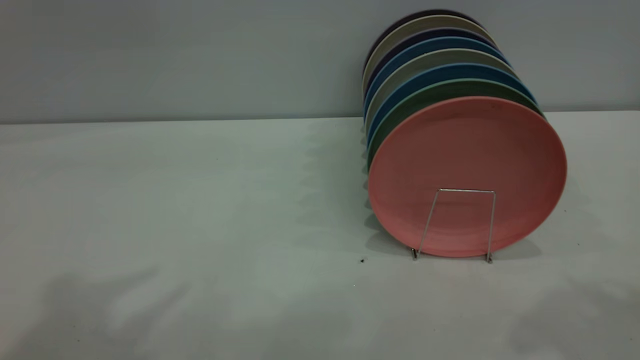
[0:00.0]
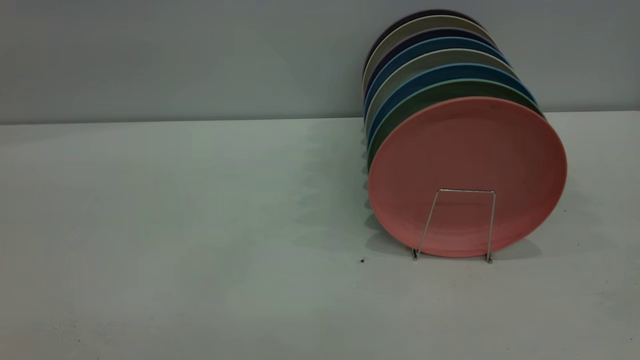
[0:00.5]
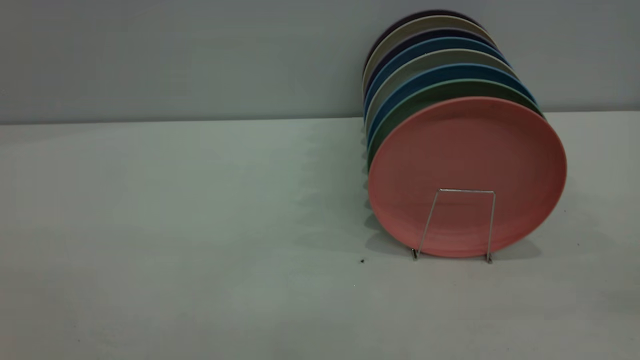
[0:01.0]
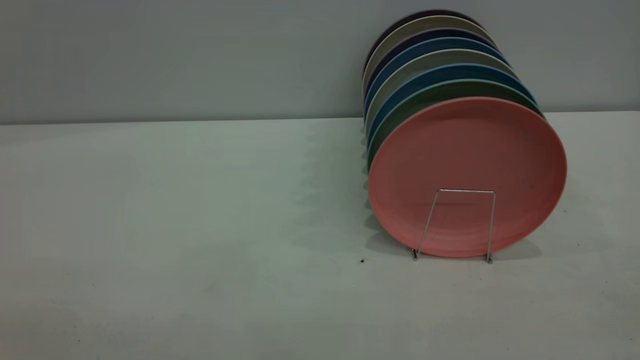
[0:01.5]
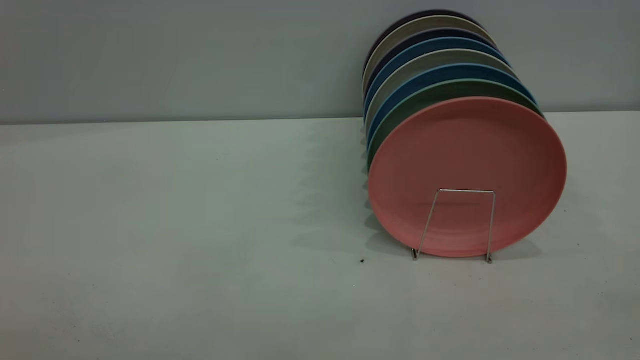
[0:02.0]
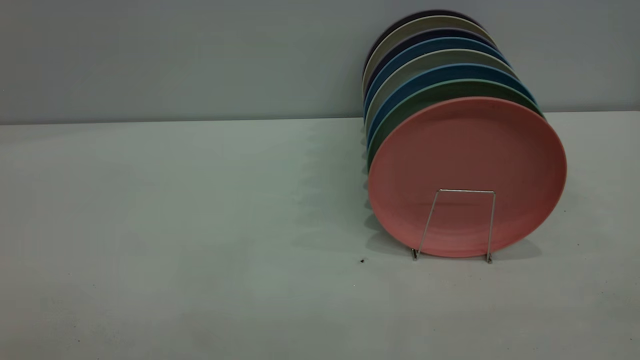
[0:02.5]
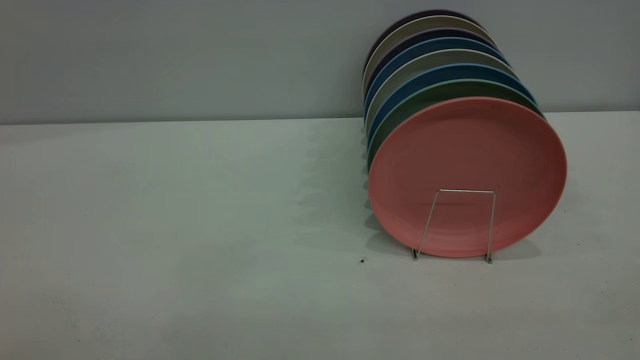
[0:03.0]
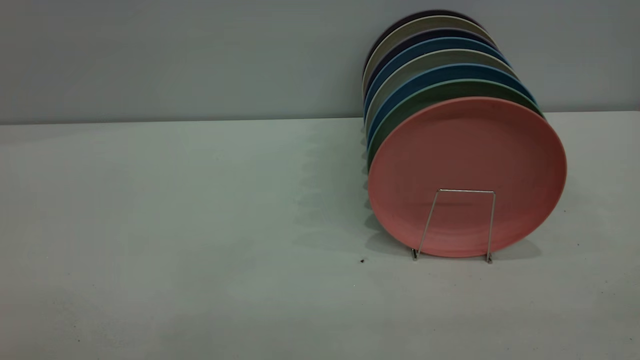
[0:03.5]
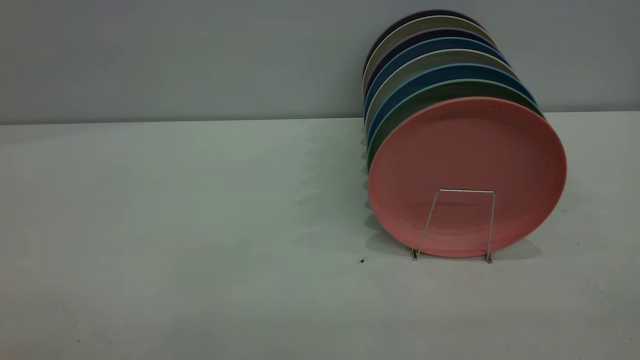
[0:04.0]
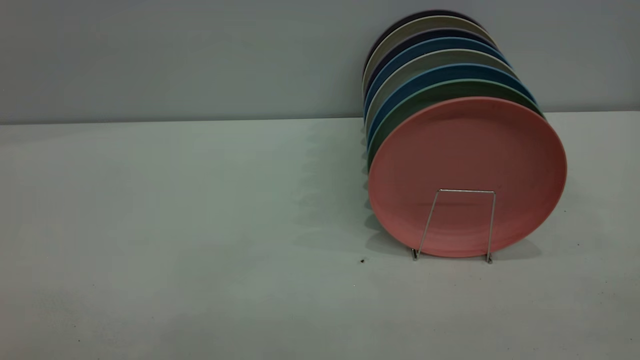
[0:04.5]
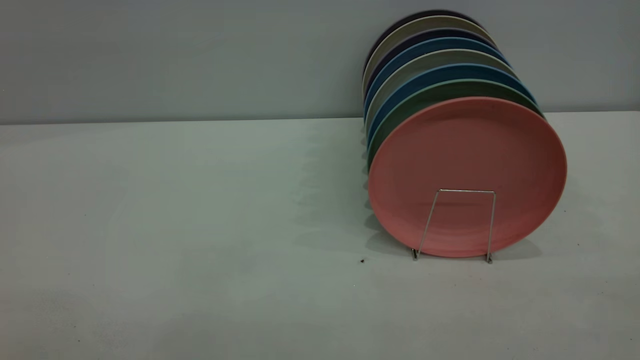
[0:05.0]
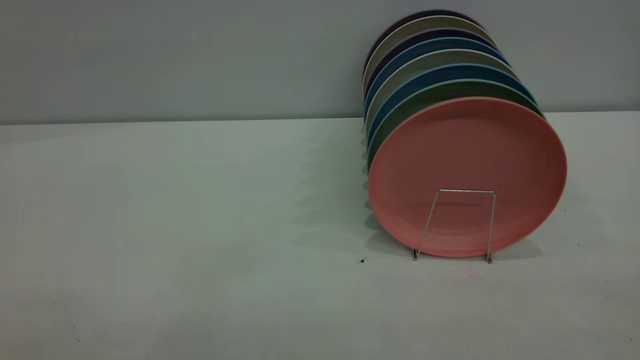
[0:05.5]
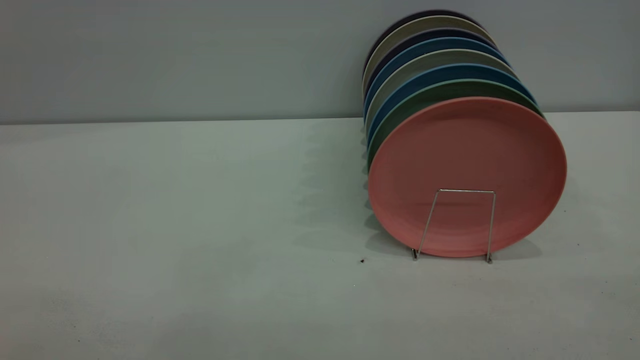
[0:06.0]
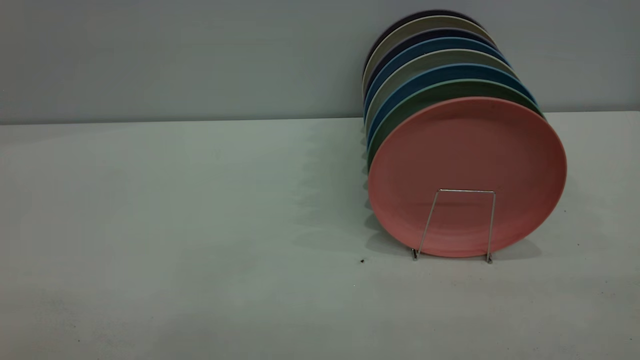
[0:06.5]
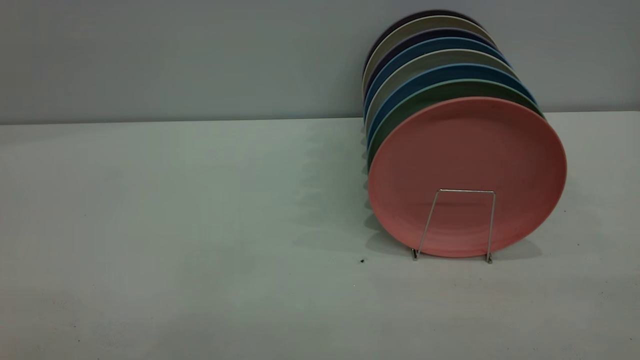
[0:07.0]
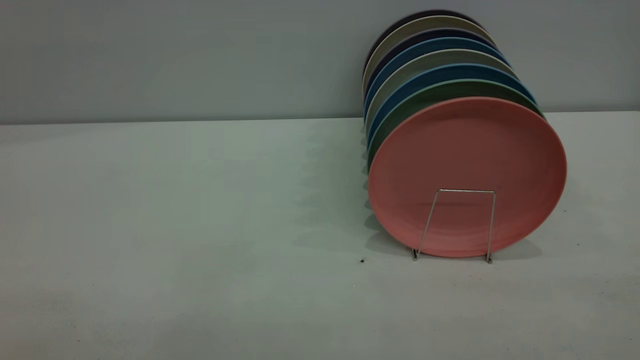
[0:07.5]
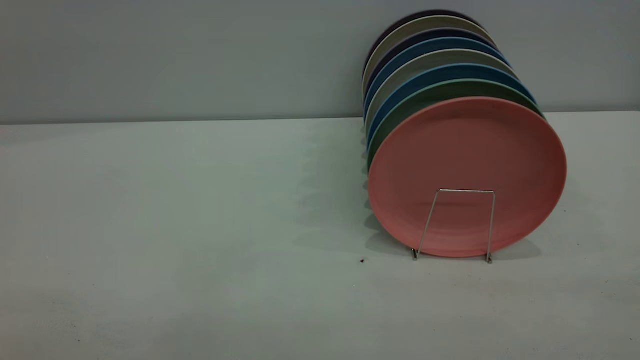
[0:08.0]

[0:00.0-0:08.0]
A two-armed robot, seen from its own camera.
Task of the whole recording: put the plate on the plate rack.
0:06.0 to 0:08.0: Both grippers stay put.

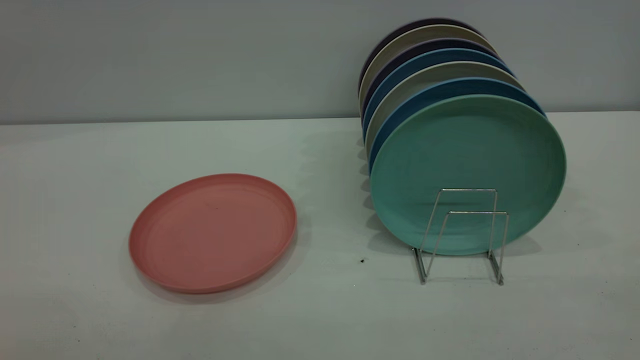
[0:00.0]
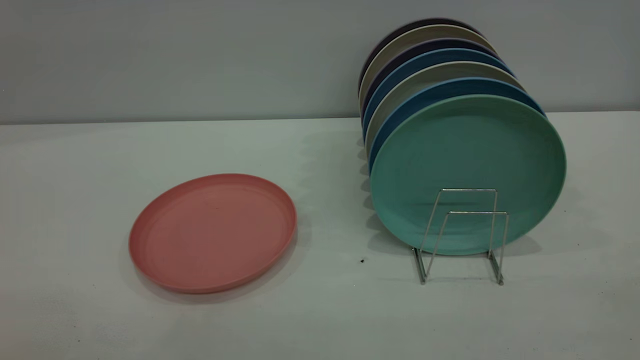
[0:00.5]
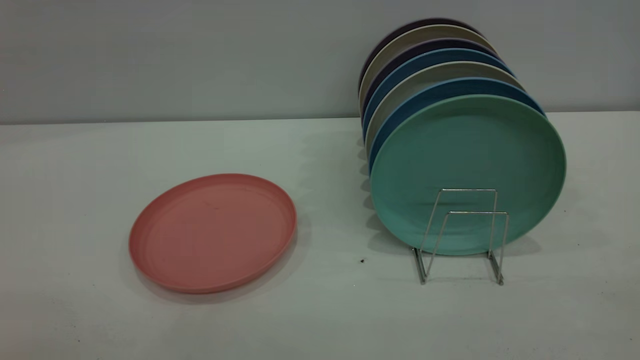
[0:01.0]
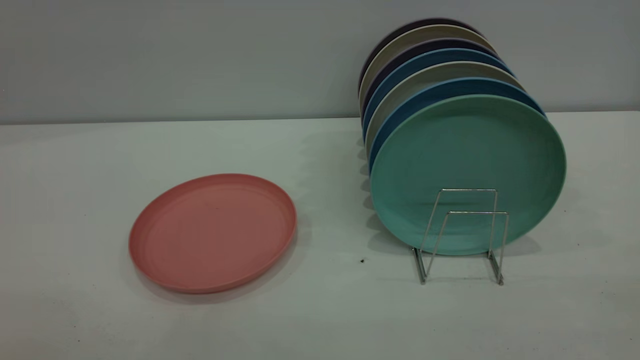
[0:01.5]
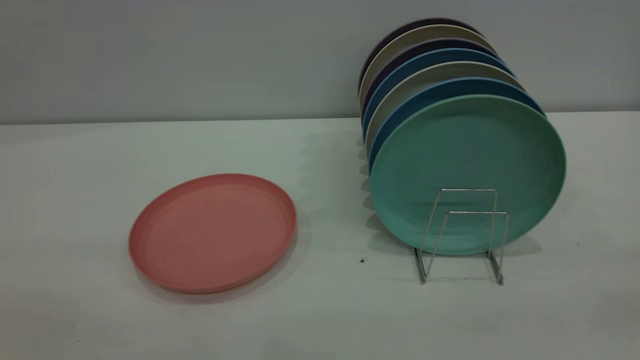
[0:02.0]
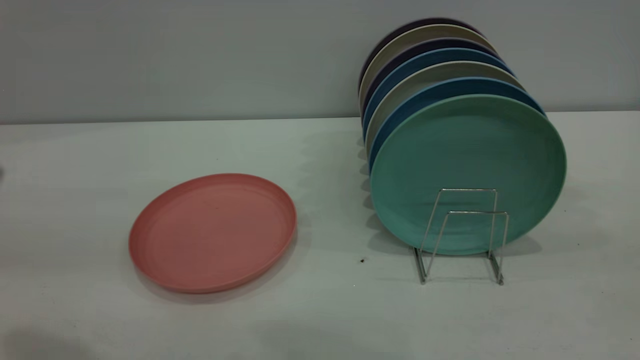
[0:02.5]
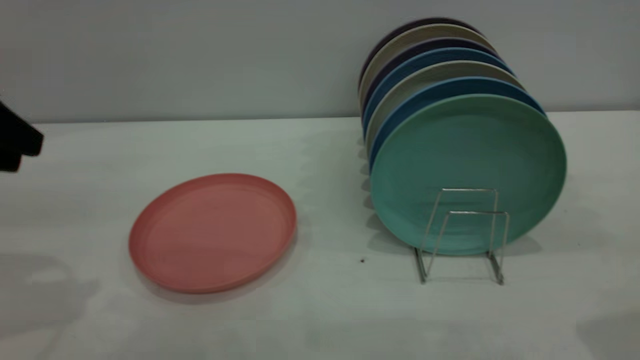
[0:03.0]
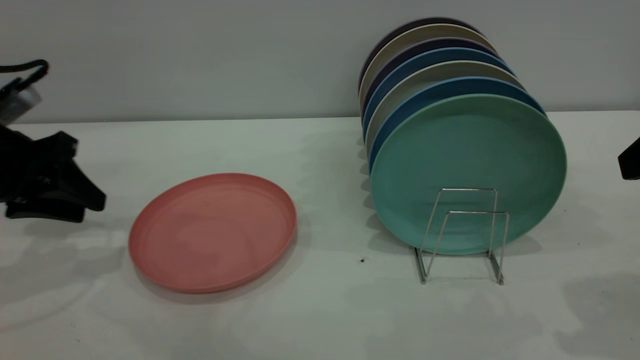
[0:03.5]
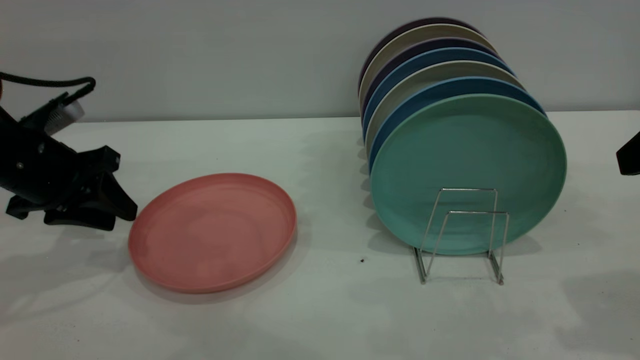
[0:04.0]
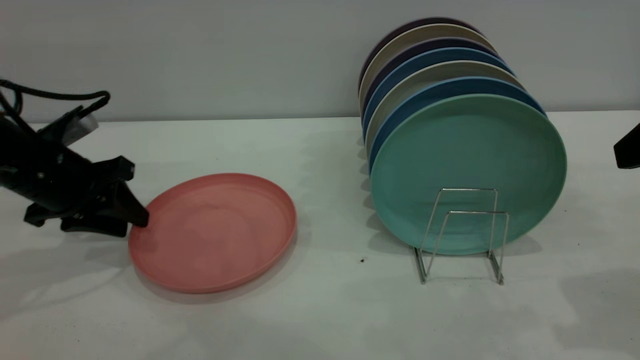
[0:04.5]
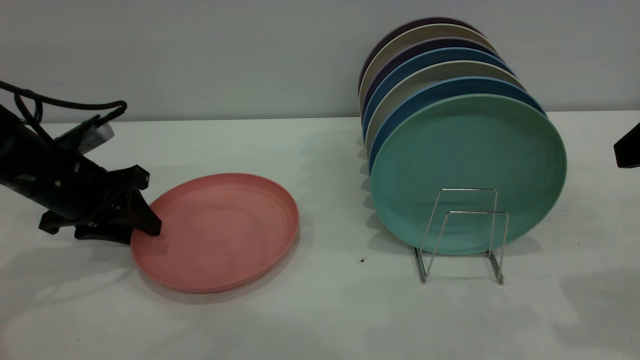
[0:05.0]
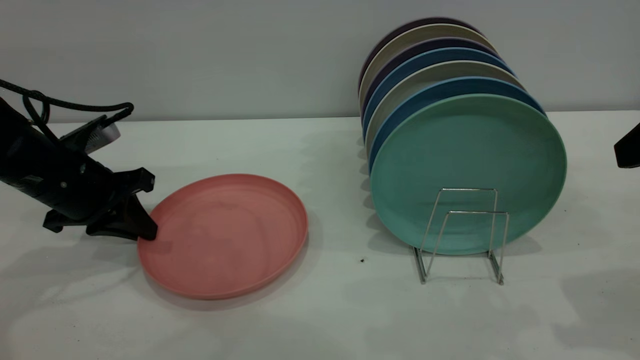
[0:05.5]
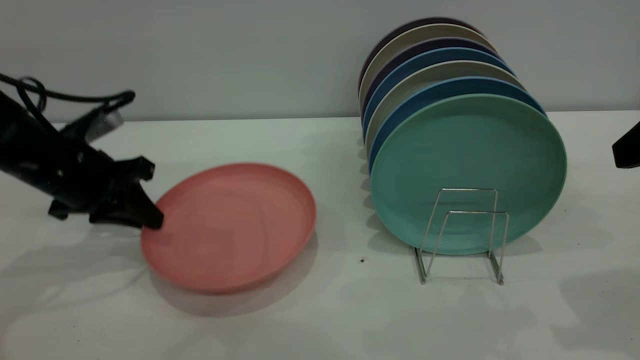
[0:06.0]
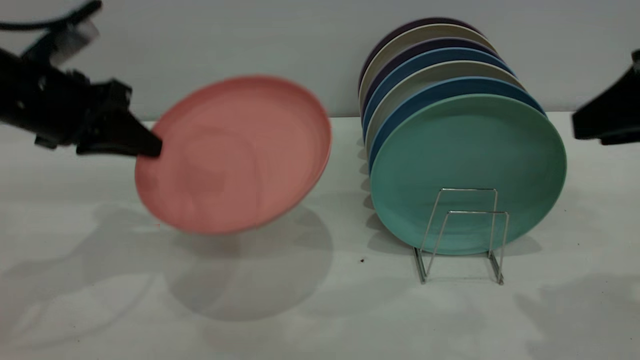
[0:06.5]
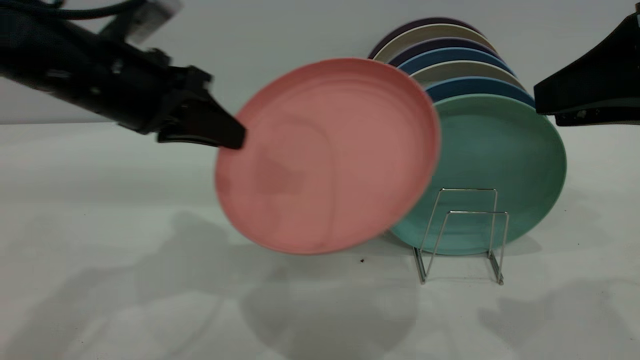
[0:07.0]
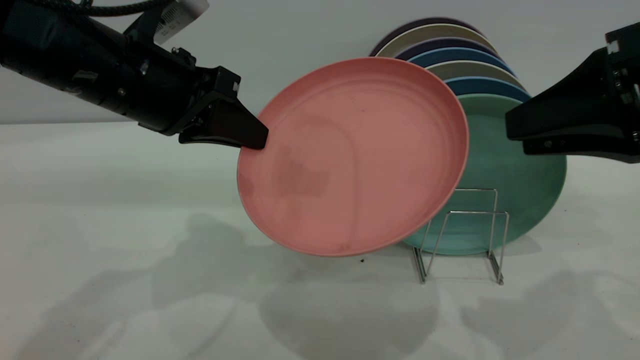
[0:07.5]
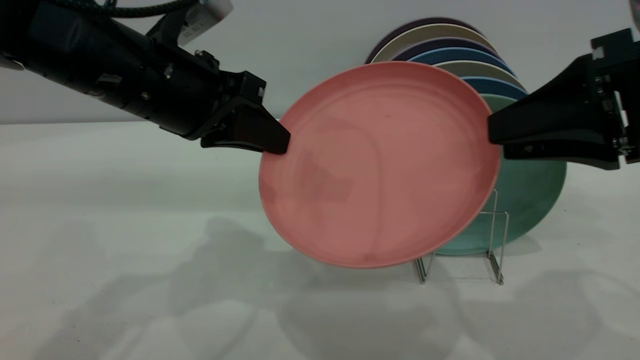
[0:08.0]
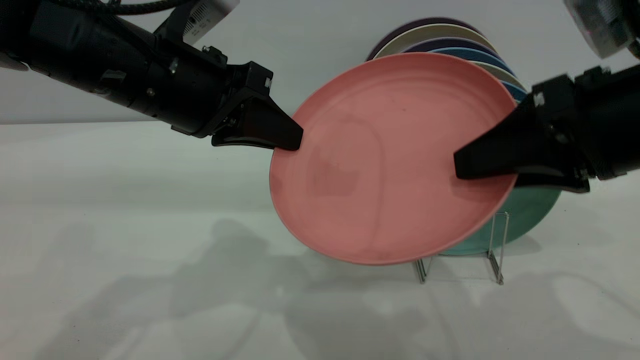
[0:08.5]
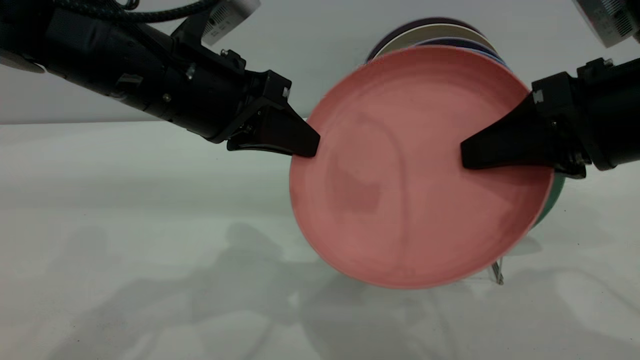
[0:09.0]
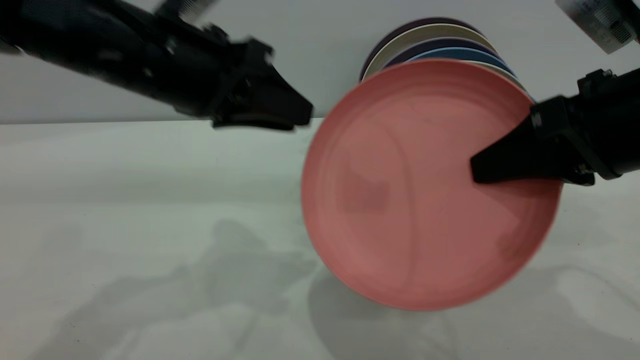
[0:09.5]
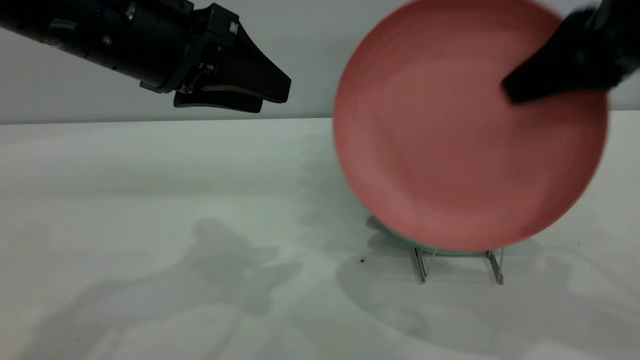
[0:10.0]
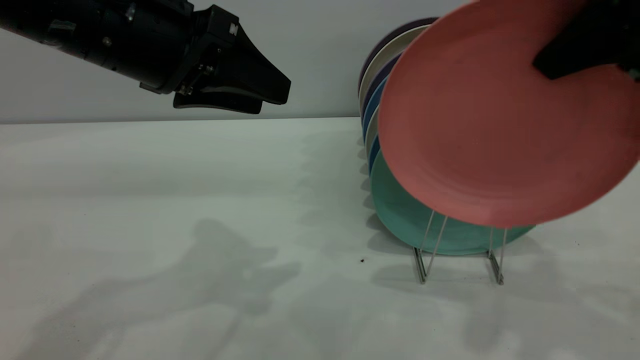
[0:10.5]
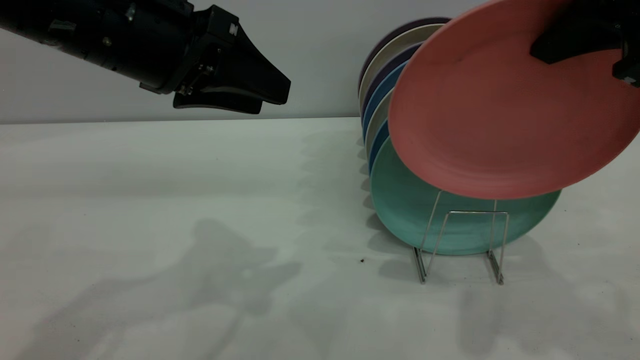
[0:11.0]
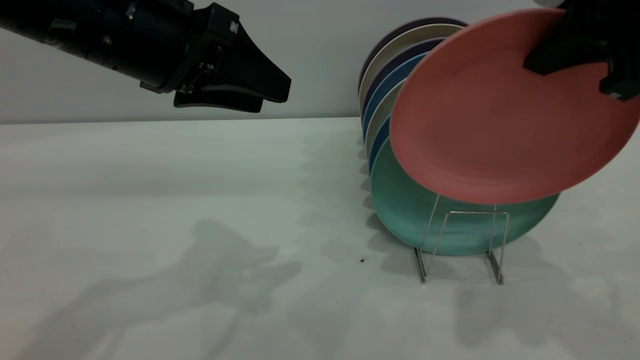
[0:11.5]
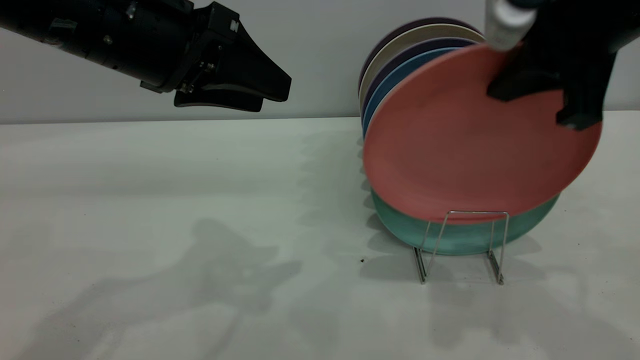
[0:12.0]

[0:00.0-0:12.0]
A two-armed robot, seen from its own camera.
Task of the whole recording: put the plate on the plate rack.
Step, 0:00.0 to 0:06.0: Pick up the plate with the left gripper.
Step, 0:06.5 to 0:09.5: Pass the plate from the left gripper to the right gripper.
0:02.0 to 0:04.0: The left gripper travels forward and downward by approximately 40 cm.
0:04.0 to 0:06.0: The left gripper closes its fingers.
0:06.0 to 0:08.0: The left gripper shifts approximately 15 cm to the right and upward; the right gripper shifts about 5 cm to the left.
0:08.0 to 0:10.0: The right gripper goes some 5 cm upward, and closes up. The left gripper opens up.
0:10.0 to 0:12.0: The right gripper changes place by some 5 cm.
